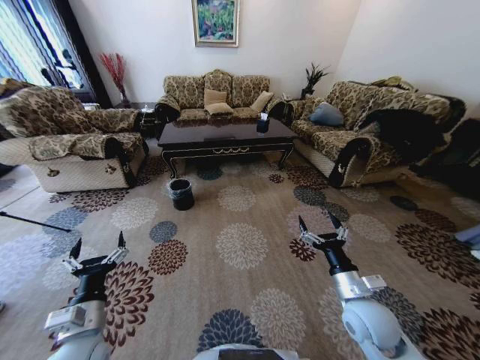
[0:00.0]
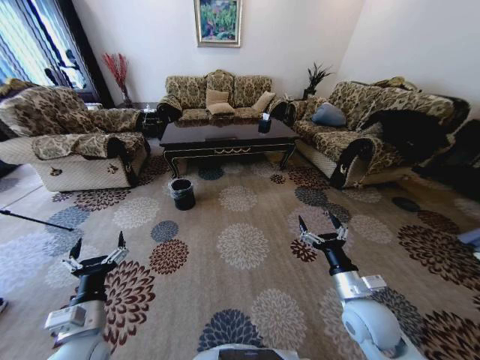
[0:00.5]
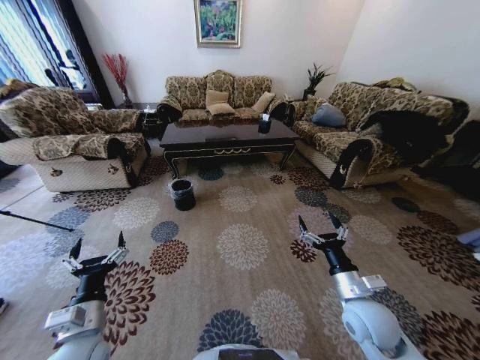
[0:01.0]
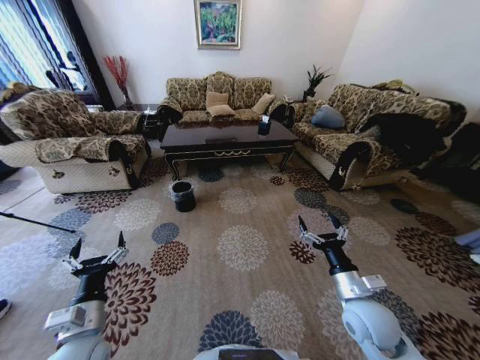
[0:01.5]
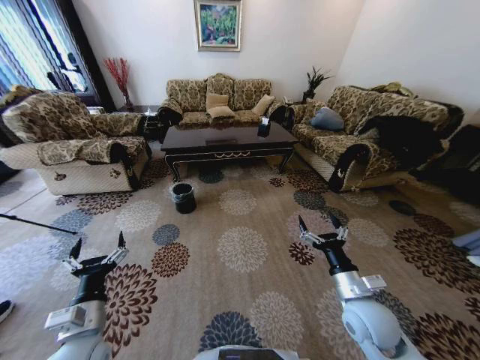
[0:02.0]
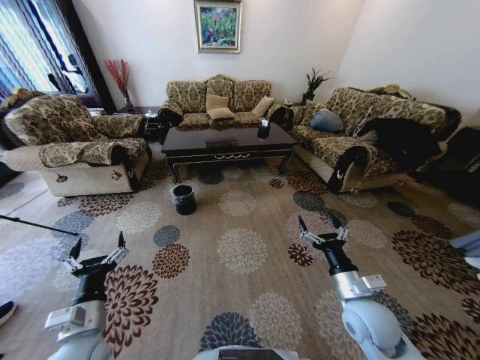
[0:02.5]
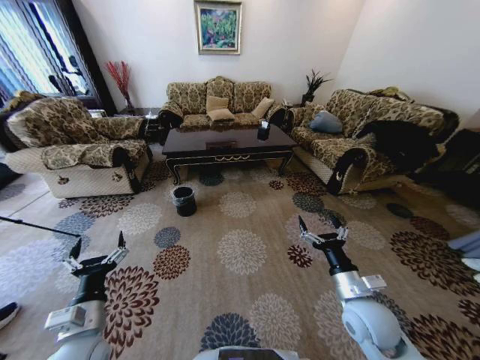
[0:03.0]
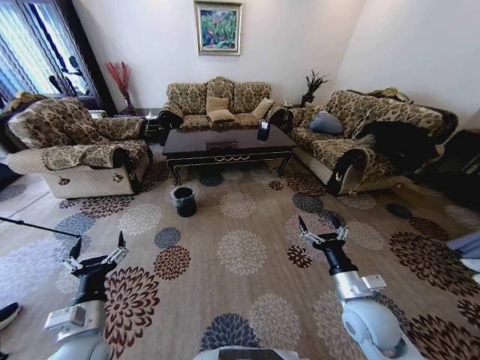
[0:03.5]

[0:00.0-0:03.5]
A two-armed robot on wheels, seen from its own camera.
Task of the whole recording: Move to the front of the table and pick up the trash from the floor, then place it into the trash bin.
0:02.0 to 0:03.5: Neither gripper changes place.
